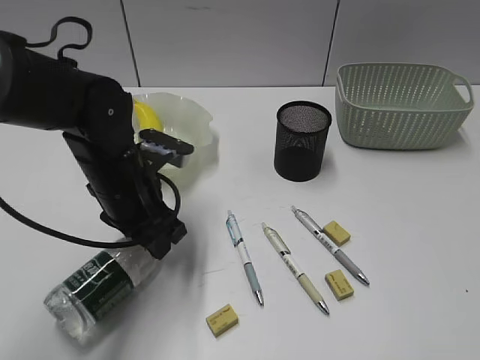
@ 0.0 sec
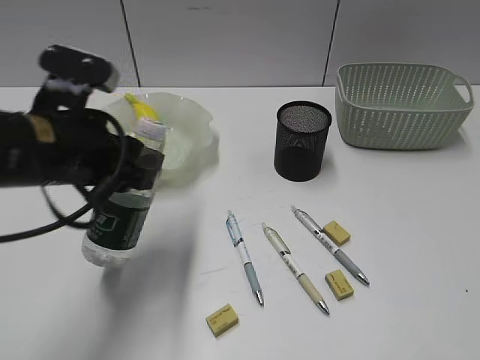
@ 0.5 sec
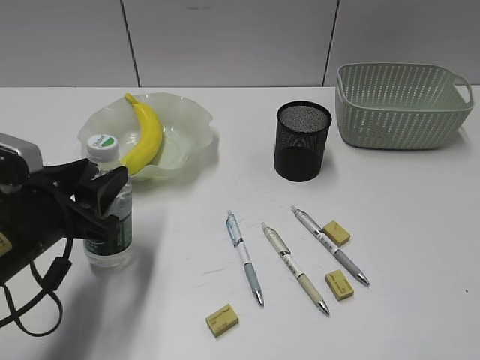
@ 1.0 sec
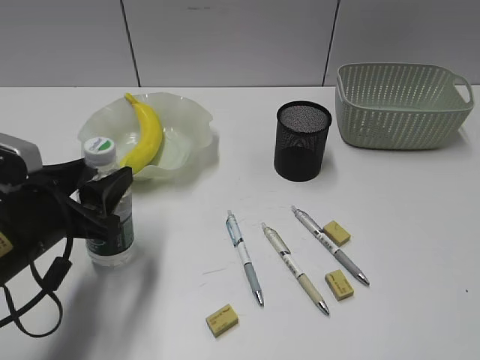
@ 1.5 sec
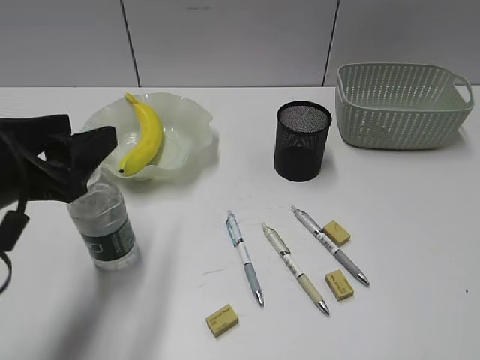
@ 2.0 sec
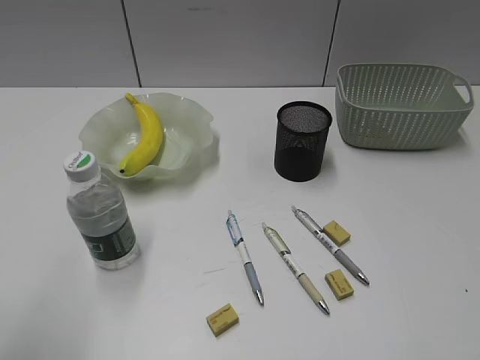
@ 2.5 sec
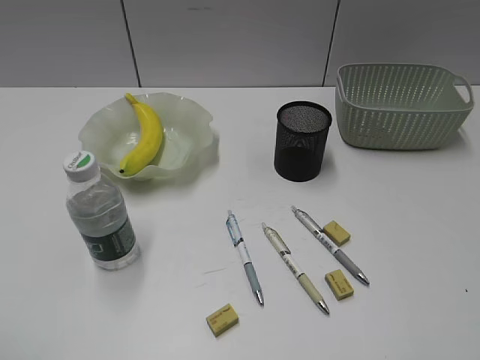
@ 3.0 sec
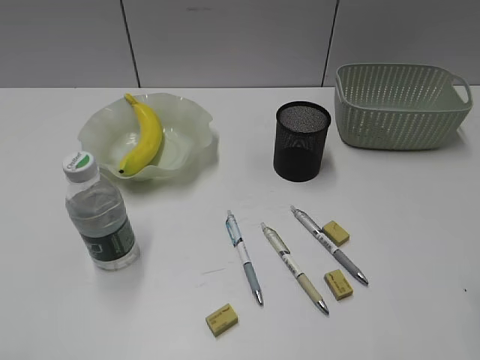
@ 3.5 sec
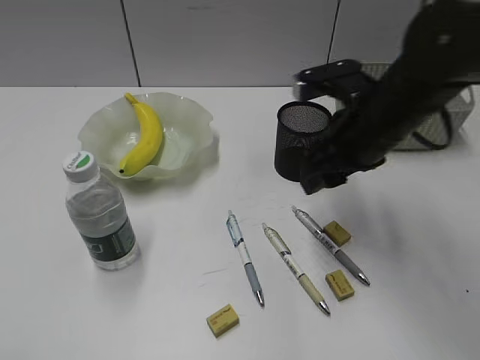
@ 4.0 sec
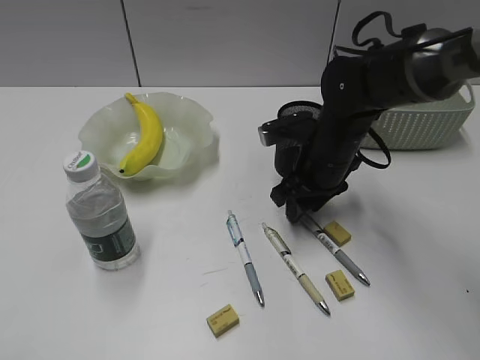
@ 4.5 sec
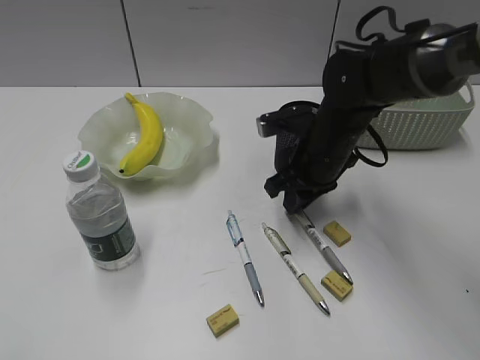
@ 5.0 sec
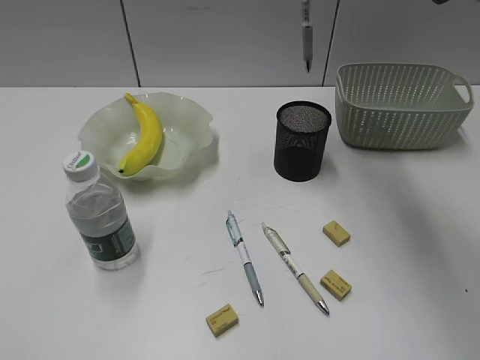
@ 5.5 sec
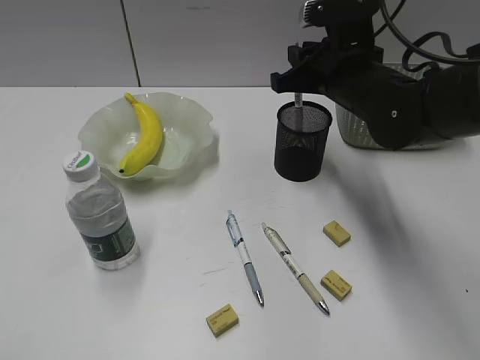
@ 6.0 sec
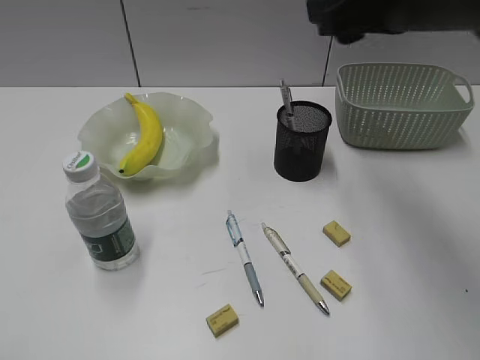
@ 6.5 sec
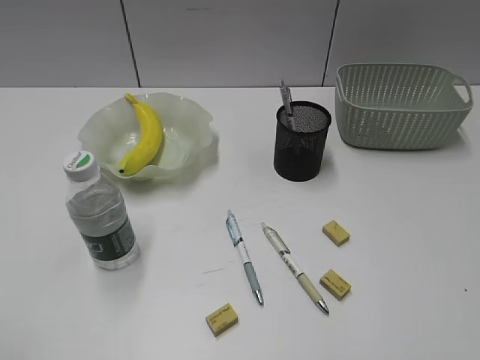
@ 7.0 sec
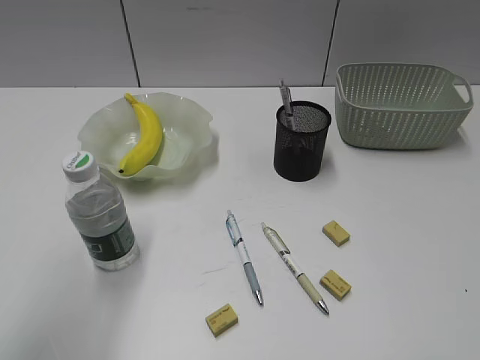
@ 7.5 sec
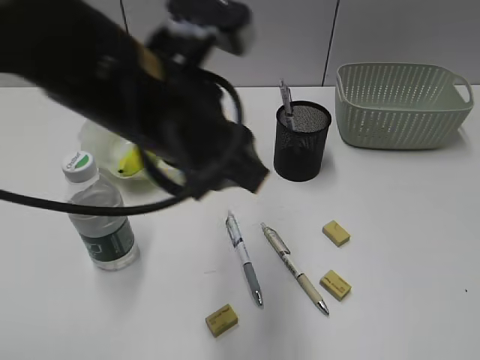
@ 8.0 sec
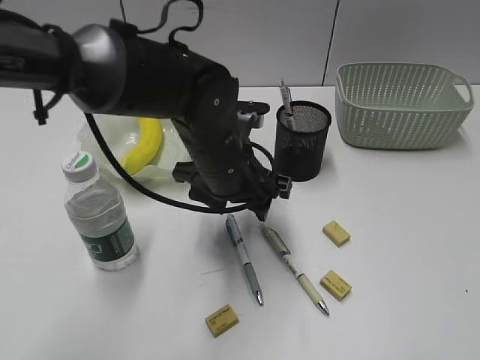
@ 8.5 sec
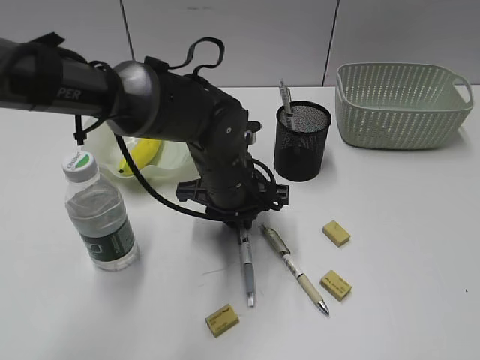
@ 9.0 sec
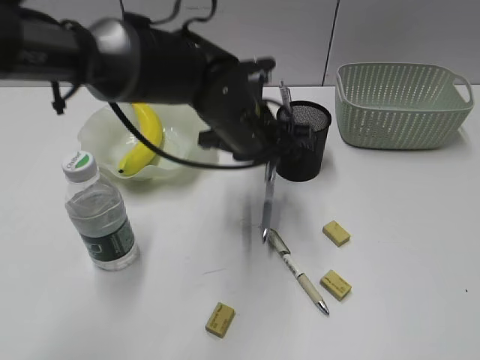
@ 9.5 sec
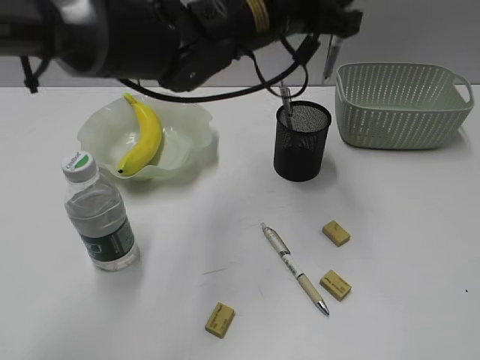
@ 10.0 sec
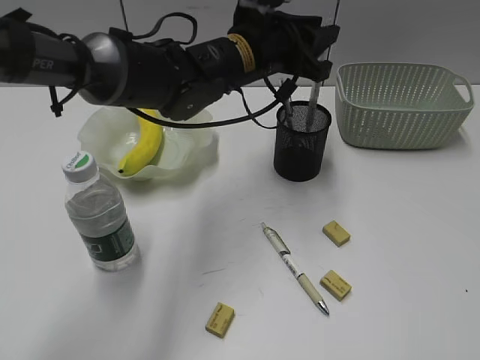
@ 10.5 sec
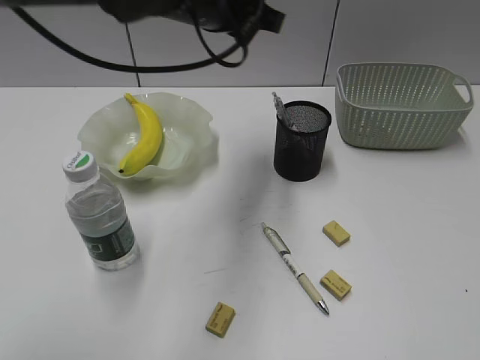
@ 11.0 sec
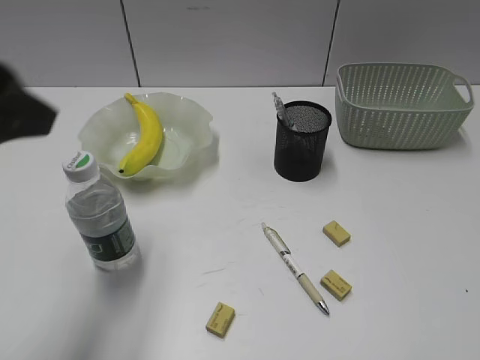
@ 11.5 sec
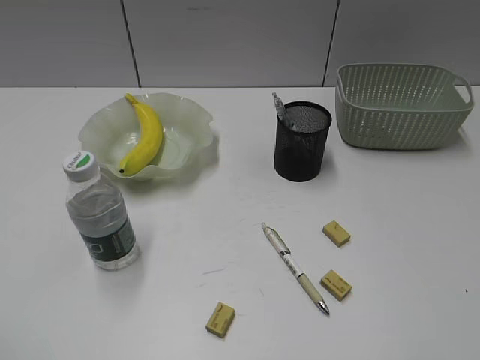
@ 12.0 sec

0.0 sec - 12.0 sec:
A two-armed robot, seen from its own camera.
Step, 0.5 sec - 1.5 sec: Stand the bottle with left gripper.
Step, 2.0 sec - 4.5 sec: Grasp the gray pen with right gripper.
Step, 5.0 sec - 6.0 sec: Place the gray pen in pen holder with right gripper.
Step, 6.5 sec - 9.0 sec: Grasp the blue pen with left gripper.
Step, 9.5 sec - 10.5 sec: Place the blue pen in pen holder with left gripper.
0.0 sec - 2.0 sec: The left gripper is displaced backward, to the left and upward by about 15 cm, and opens up.
2.0 sec - 4.0 sec: The right gripper moves forward and to the left, about 35 cm, and opens its fingers; the left gripper travels backward and to the left by some 25 cm.
4.0 sec - 6.0 sec: The right gripper swings up and down, approximately 20 cm each way, with 2 reversals, and closes its fingers.
6.0 sec - 8.0 sec: The right gripper goes approximately 40 cm backward and to the right, and opens and closes again, while the left gripper is displaced to the right and forward by approximately 35 cm.
8.0 sec - 10.0 sec: The left gripper is displaced forward and to the right by about 15 cm, travels downward and back again, some 15 cm each way, and opens, then closes again.
10.0 sec - 12.0 sec: The left gripper is displaced to the left and backward by approximately 50 cm, and opens its fingers.

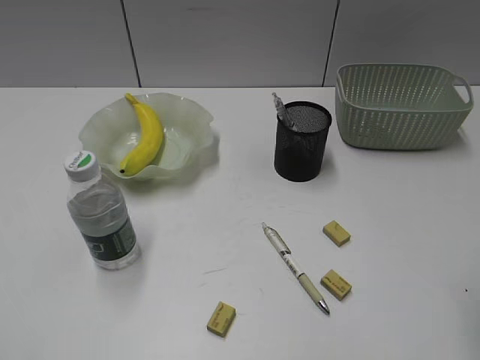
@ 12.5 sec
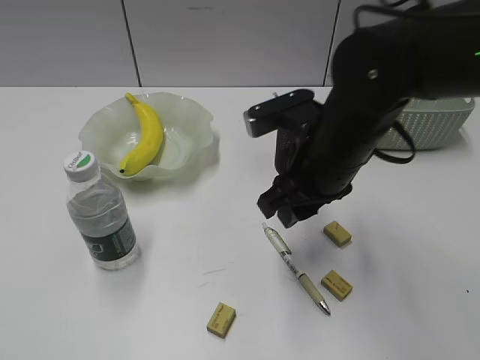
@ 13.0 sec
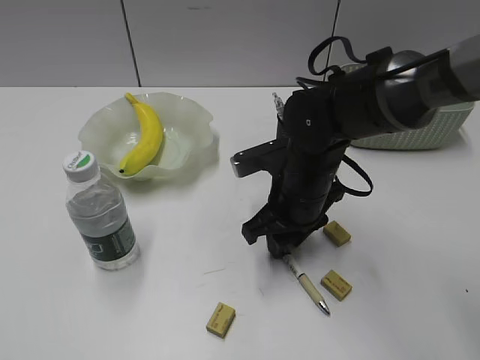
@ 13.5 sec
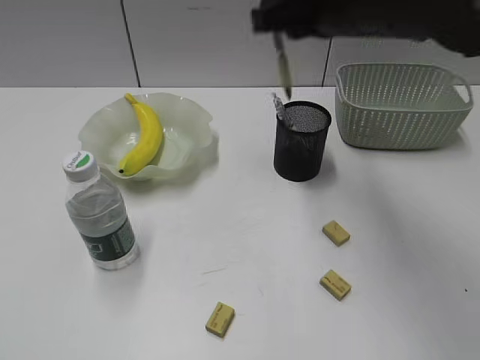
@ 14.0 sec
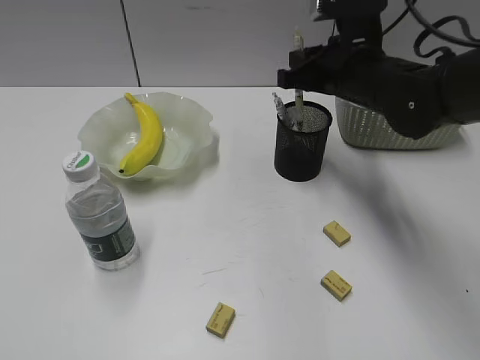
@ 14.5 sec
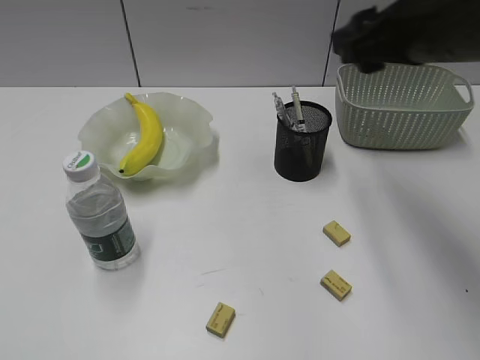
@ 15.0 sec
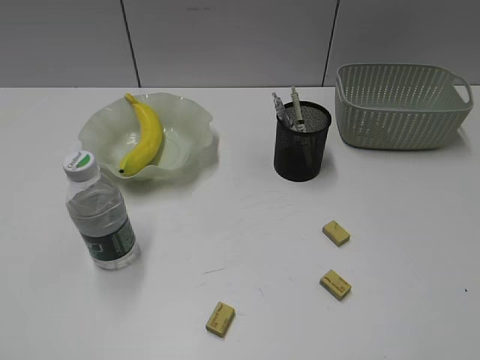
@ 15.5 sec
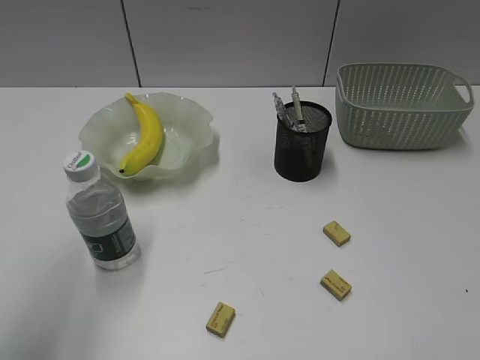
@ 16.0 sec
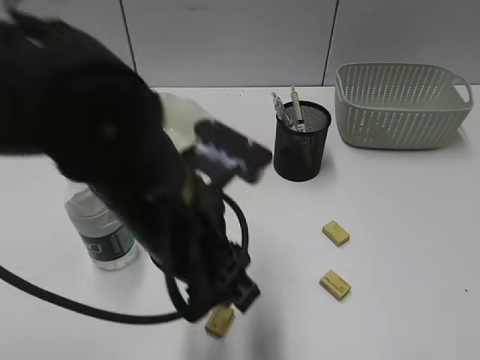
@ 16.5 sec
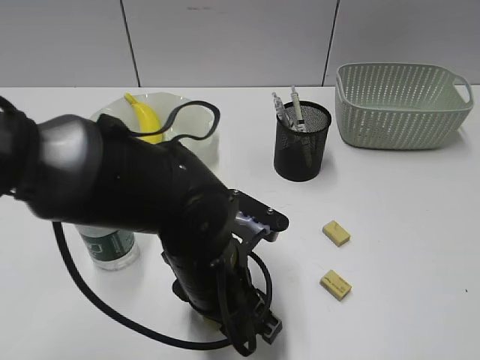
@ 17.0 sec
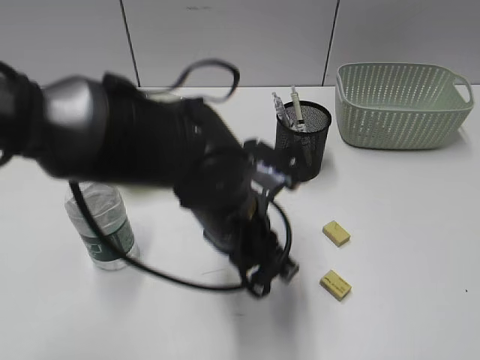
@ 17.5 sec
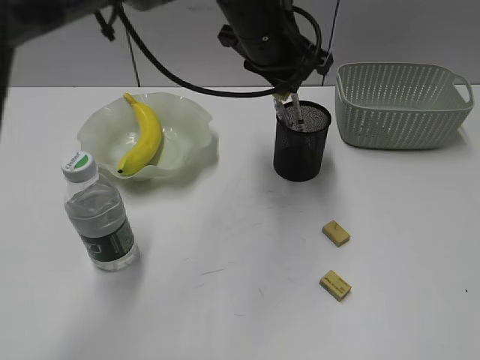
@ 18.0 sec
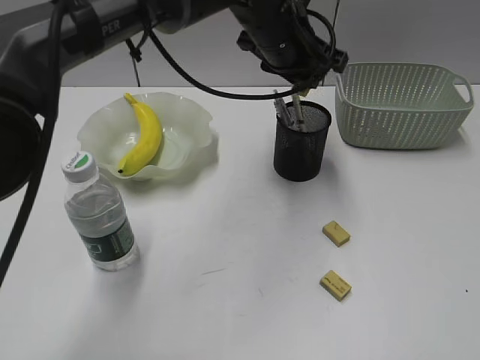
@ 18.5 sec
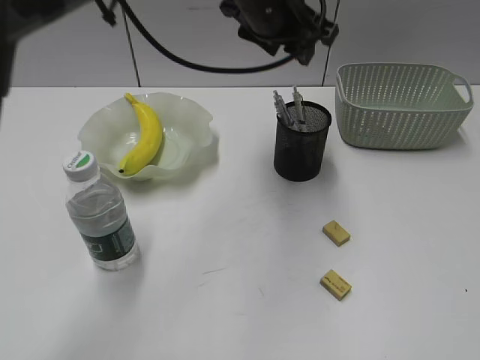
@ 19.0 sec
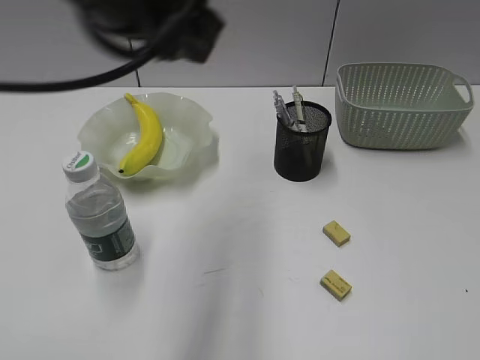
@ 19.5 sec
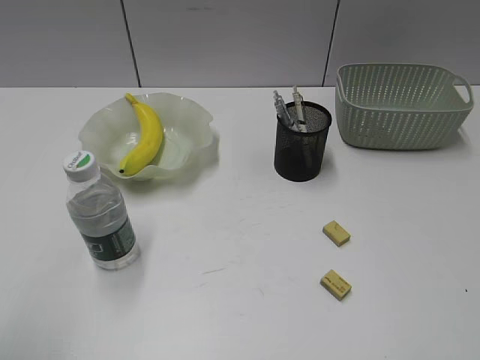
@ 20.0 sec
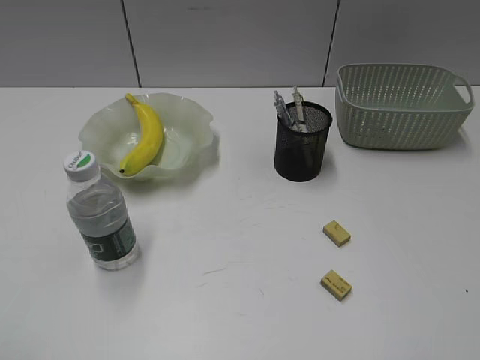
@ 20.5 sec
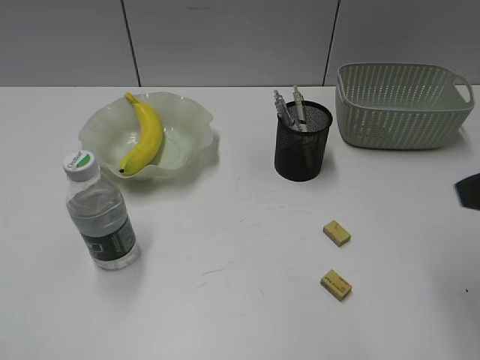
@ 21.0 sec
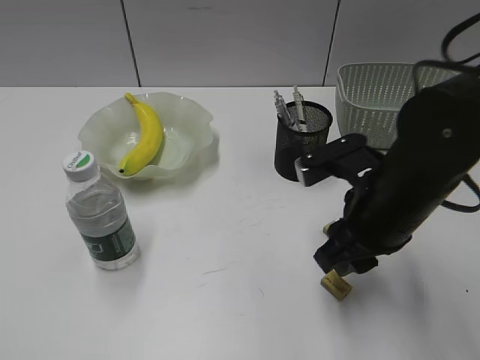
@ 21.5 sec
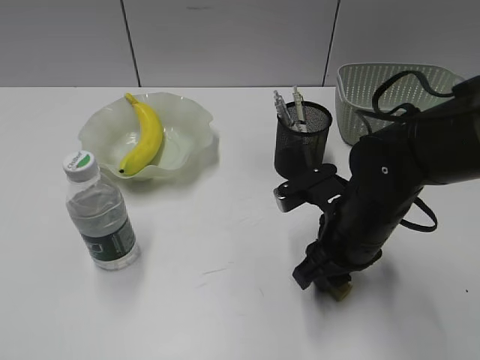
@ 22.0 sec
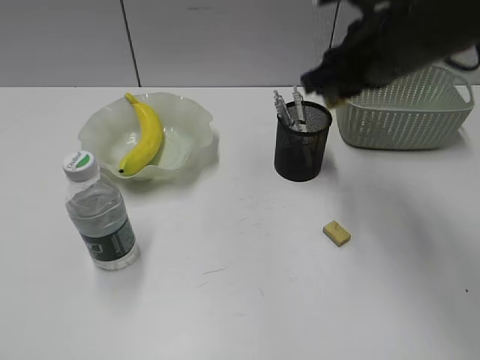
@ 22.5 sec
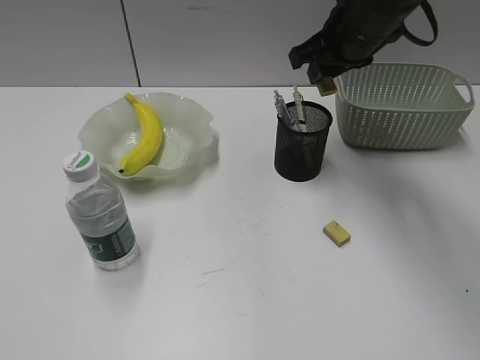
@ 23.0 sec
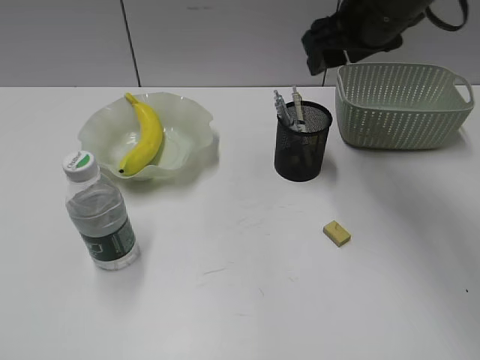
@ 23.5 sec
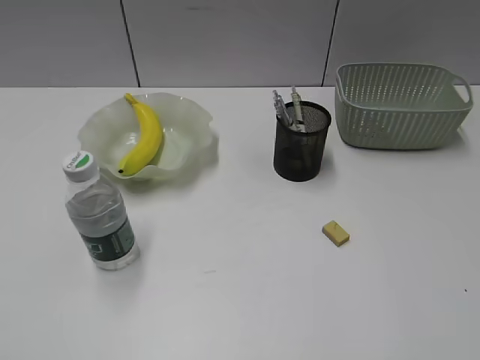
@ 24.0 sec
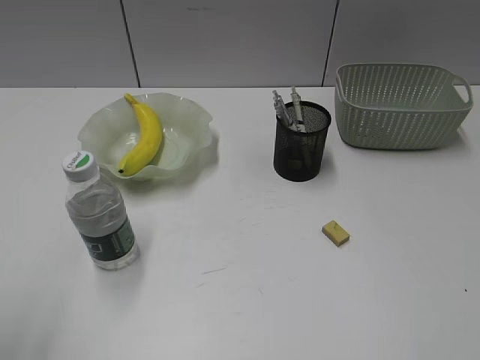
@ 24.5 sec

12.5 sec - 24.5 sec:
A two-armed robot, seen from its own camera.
Step, 14.0 sec - 14.5 sec: Place the yellow pen in pen holder with right gripper.
Step, 15.0 sec - 17.0 sec: Grasp the eraser with left gripper.
Step, 17.5 sec - 18.5 sec: Place the eraser in pen holder with left gripper.
Step, 19.0 sec - 22.0 sec: Grasp the eraser with right gripper.
Step, 22.5 sec - 23.0 sec: Place the eraser in pen holder with right gripper.
12.5 sec - 14.5 sec: The right gripper heads forward and to the left, covering roughly 30 cm.
14.5 sec - 16.5 sec: The left gripper is displaced to the right and forward by roughly 35 cm. Meanwhile the right gripper moves backward and to the right, roughly 40 cm, and opens.
16.5 sec - 18.5 sec: The left gripper shifts roughly 25 cm forward and to the right.
18.5 sec - 20.5 sec: The left gripper shifts roughly 50 cm backward and to the left.
20.5 sec - 22.5 sec: The right gripper is displaced forward and to the left by some 35 cm.
22.5 sec - 24.5 sec: The right gripper moves backward and to the right, roughly 35 cm, and opens its fingers; the left gripper moves forward, approximately 5 cm.

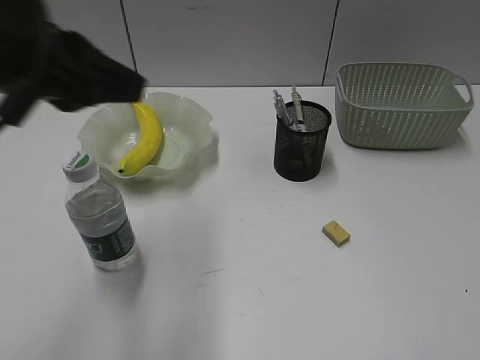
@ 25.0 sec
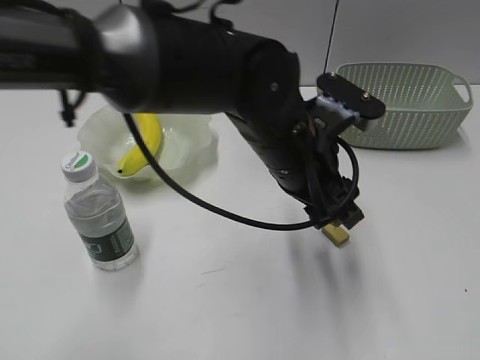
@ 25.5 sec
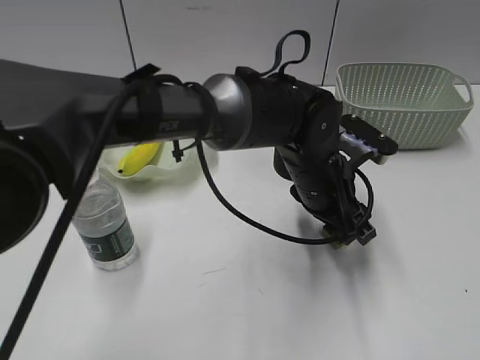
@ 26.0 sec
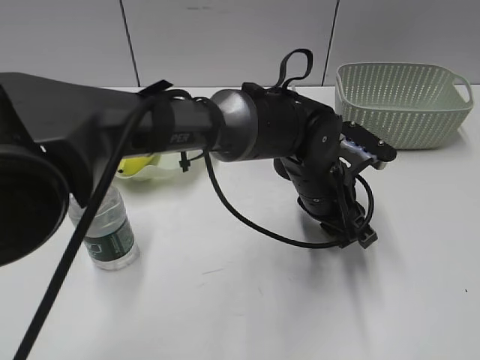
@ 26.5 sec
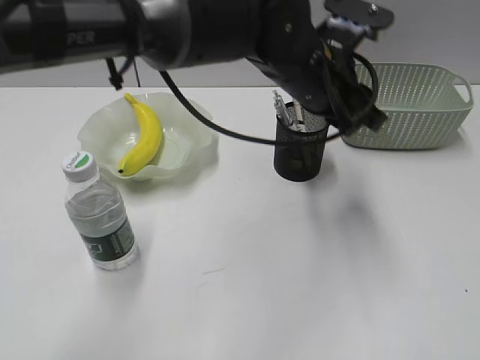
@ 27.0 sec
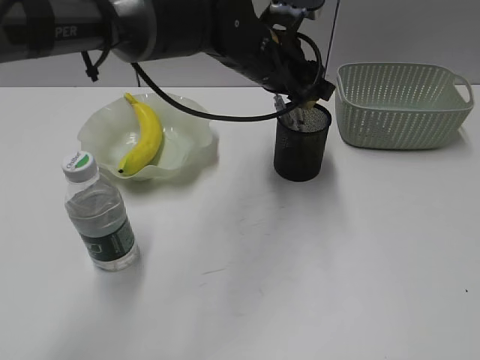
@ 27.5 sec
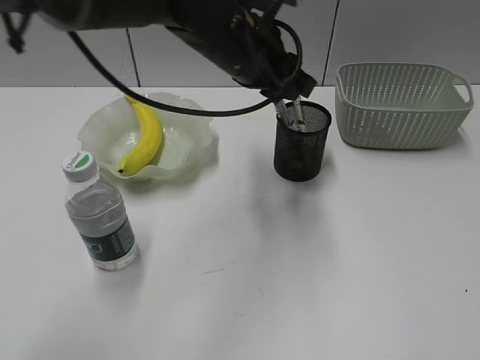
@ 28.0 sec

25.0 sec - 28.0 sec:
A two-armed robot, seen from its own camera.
Step, 27.0 sec - 27.5 sec: Place the eraser in pen holder with left gripper.
25.0 sec - 26.5 sec: The left gripper moves to the right and downward, about 35 cm, and opens, then closes again.
26.5 sec - 28.0 sec: The left gripper travels upward, to the left and forward by approximately 15 cm.
